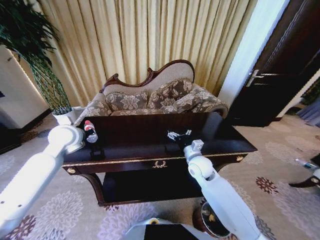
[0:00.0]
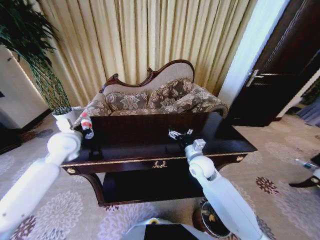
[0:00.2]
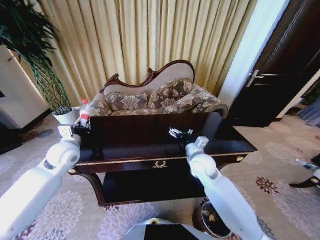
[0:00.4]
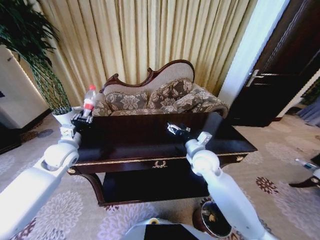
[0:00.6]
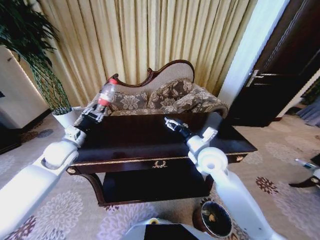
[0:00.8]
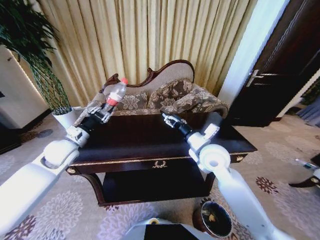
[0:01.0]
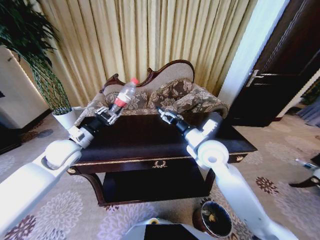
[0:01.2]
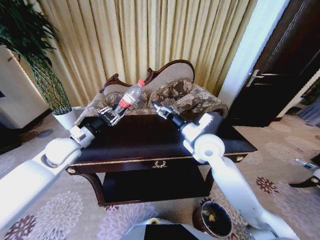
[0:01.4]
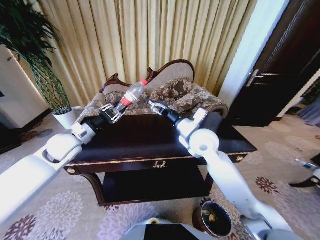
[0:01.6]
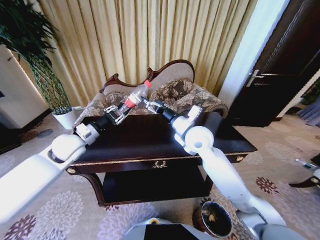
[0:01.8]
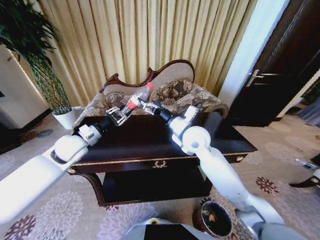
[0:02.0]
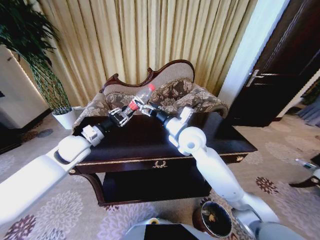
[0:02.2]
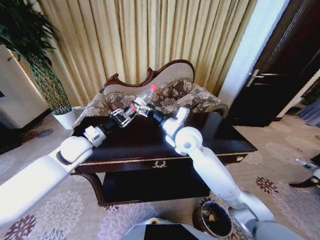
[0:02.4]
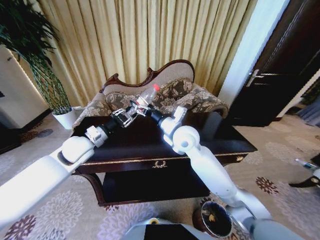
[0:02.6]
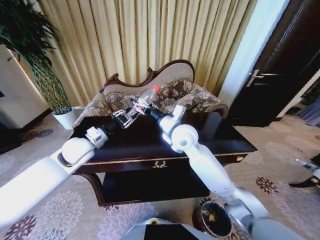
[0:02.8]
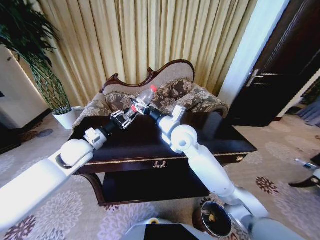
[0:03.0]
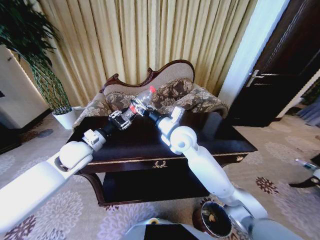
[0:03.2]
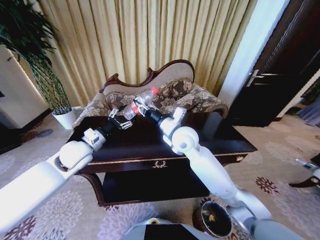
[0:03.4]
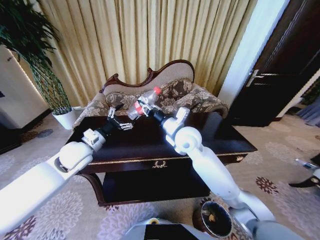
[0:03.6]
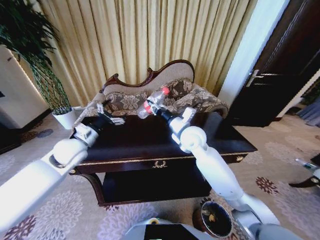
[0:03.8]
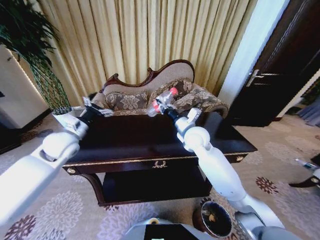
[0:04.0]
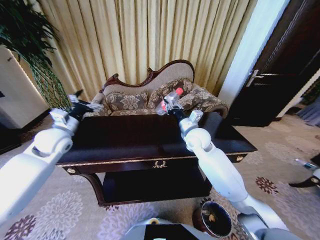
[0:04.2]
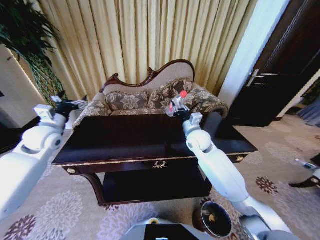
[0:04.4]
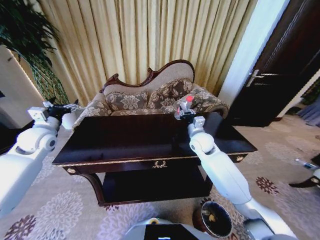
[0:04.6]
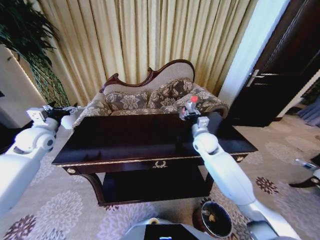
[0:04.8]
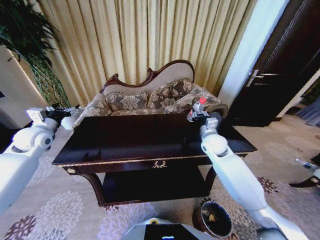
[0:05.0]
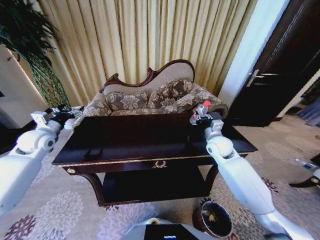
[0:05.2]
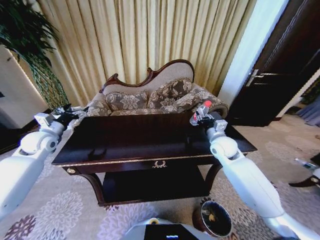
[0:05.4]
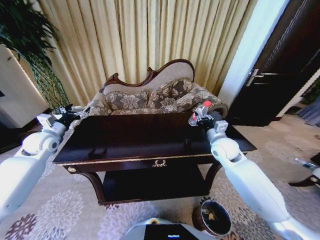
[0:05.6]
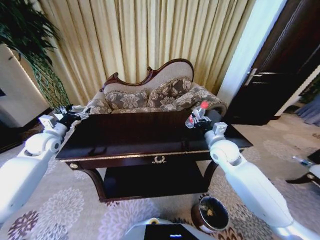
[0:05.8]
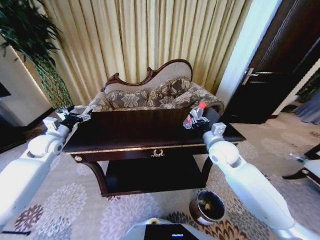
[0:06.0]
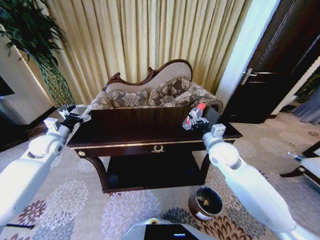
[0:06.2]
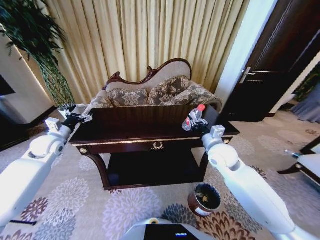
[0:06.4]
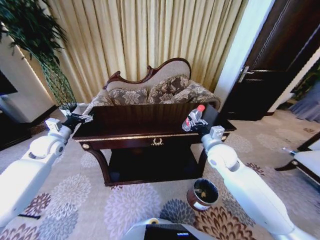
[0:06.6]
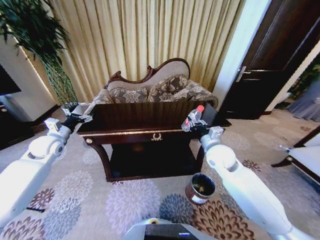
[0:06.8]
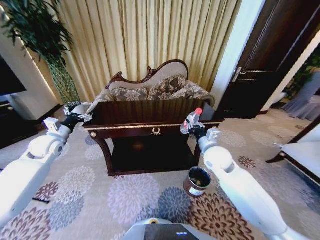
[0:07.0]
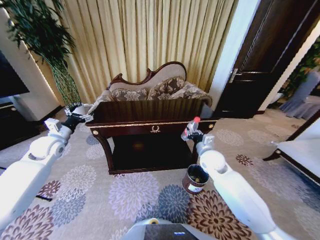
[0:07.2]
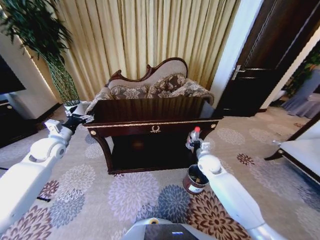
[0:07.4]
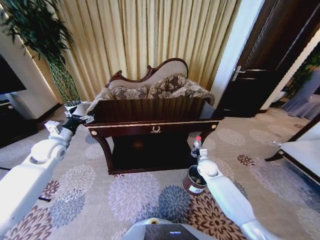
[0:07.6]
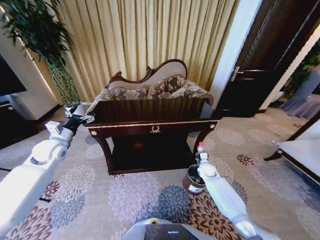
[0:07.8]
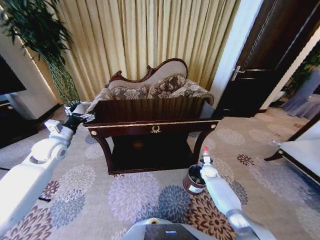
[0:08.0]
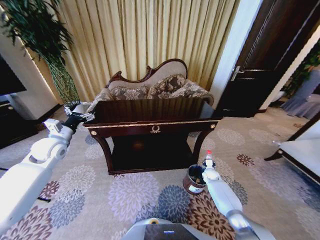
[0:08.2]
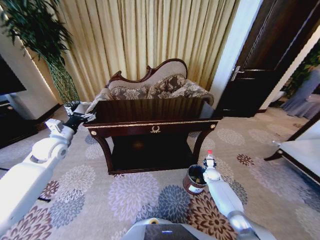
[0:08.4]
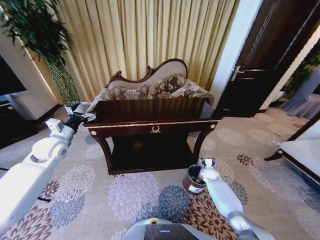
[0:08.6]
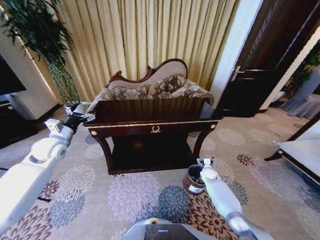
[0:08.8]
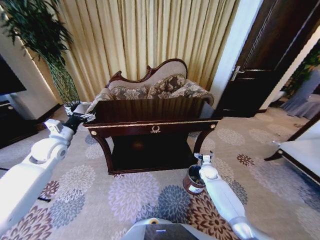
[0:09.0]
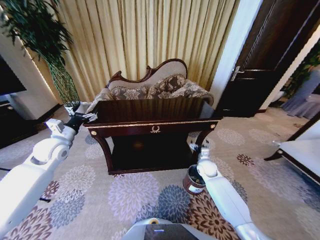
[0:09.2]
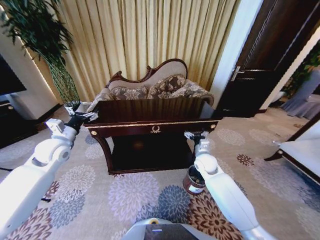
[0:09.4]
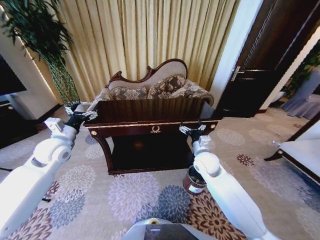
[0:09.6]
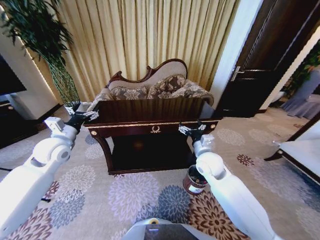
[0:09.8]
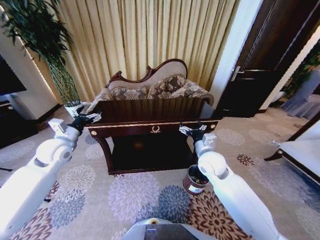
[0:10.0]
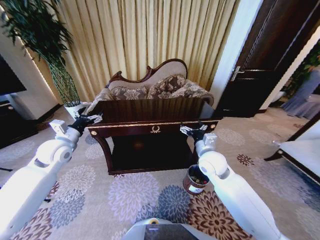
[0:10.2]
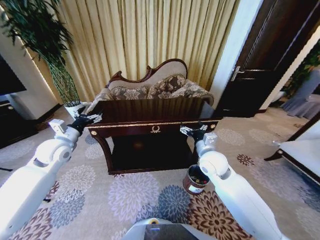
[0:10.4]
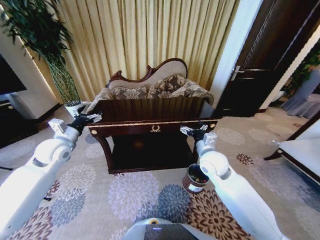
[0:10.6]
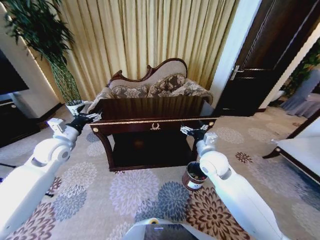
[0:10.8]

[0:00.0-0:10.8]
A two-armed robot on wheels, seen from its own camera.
Task of the whole recording: Move to the front of the table and place the trash on the table into the trash bin.
0:00.0 to 0:01.6: The right gripper travels upward by roughly 15 cm.
0:01.6 to 0:03.0: The right gripper shifts some 5 cm to the left.
0:03.0 to 0:04.6: The left gripper goes roughly 15 cm to the left, and opens up. The right gripper shifts approximately 15 cm to the right and downward, and closes up.
0:04.6 to 0:06.2: The left gripper goes roughly 5 cm downward, while the right gripper shifts roughly 10 cm backward and to the right.
0:06.2 to 0:07.8: The right gripper moves downward, roughly 30 cm.
0:07.8 to 0:09.2: The right gripper heads upward, covering approximately 10 cm, and opens.
0:09.2 to 0:10.8: The right gripper shifts some 20 cm upward and backward.
